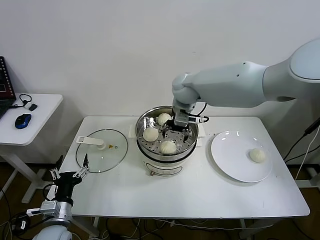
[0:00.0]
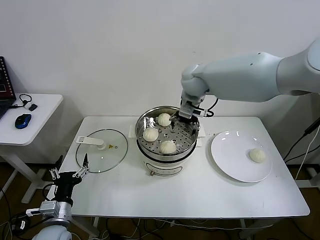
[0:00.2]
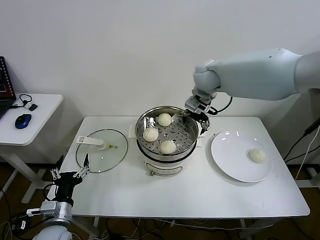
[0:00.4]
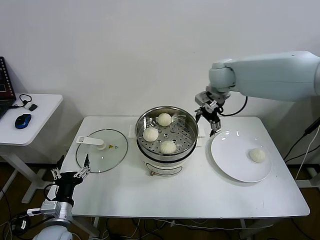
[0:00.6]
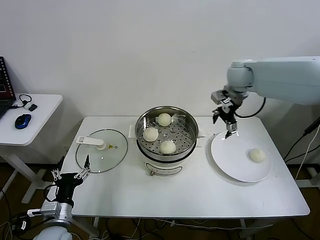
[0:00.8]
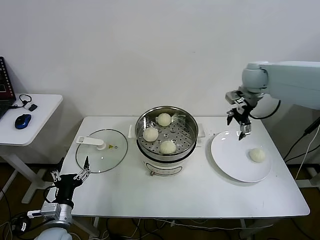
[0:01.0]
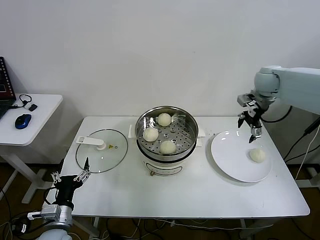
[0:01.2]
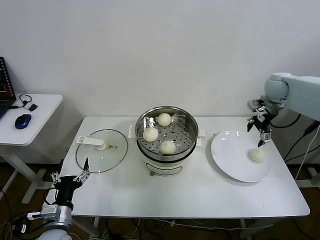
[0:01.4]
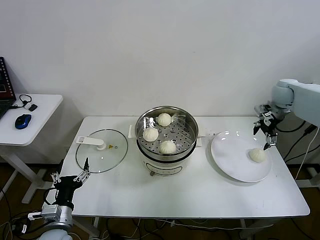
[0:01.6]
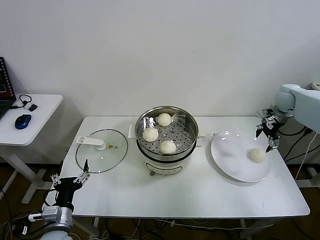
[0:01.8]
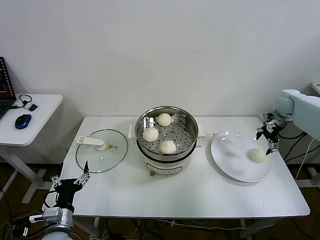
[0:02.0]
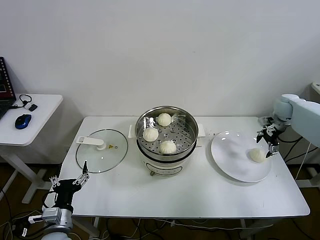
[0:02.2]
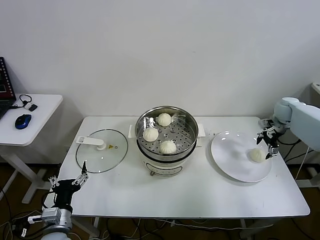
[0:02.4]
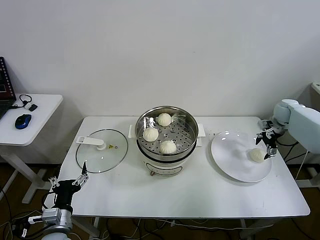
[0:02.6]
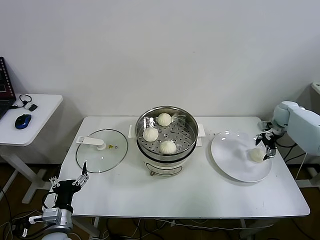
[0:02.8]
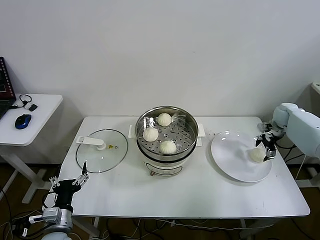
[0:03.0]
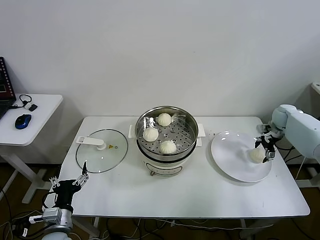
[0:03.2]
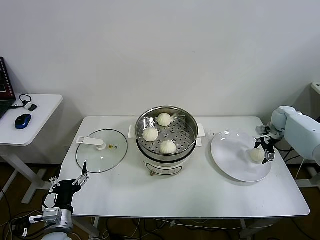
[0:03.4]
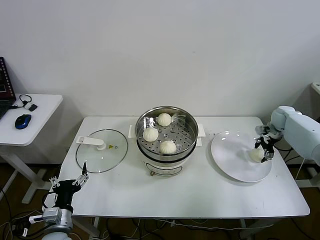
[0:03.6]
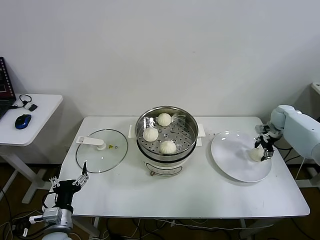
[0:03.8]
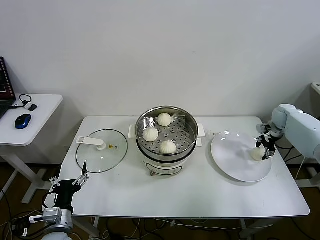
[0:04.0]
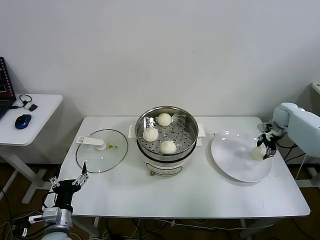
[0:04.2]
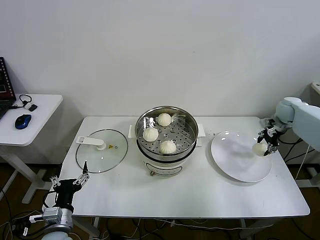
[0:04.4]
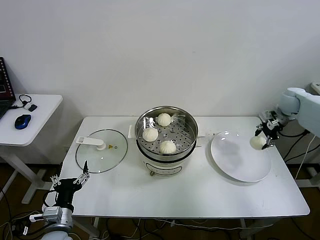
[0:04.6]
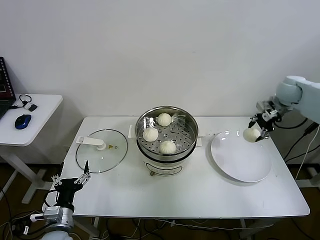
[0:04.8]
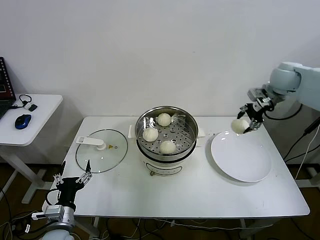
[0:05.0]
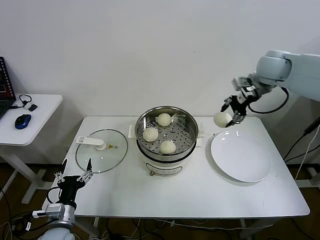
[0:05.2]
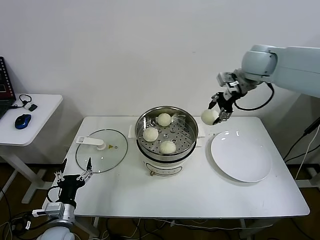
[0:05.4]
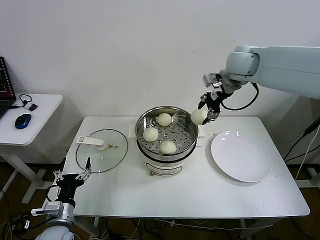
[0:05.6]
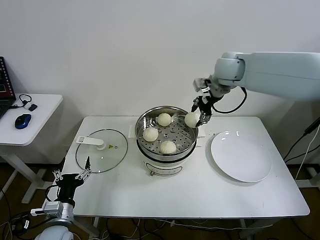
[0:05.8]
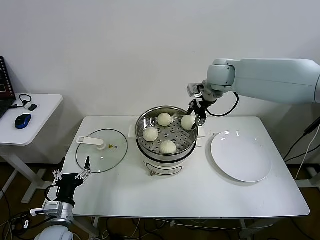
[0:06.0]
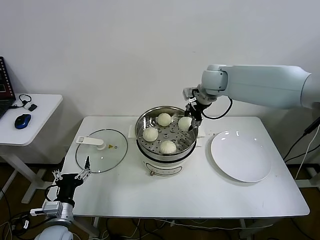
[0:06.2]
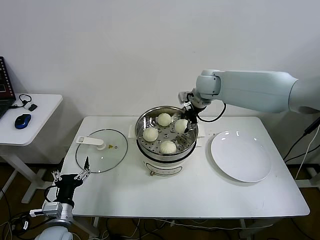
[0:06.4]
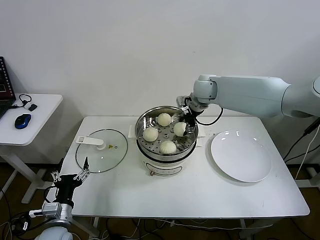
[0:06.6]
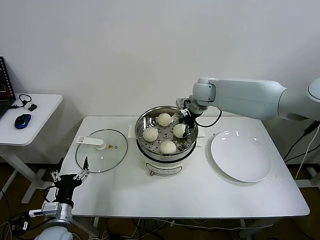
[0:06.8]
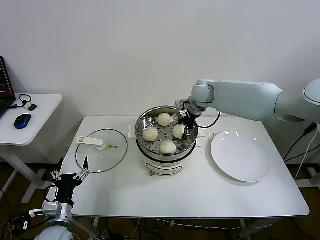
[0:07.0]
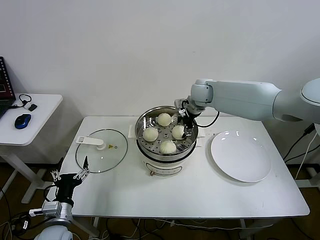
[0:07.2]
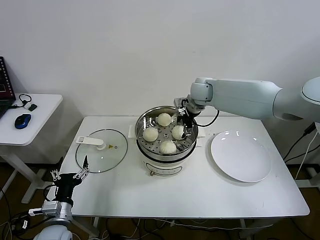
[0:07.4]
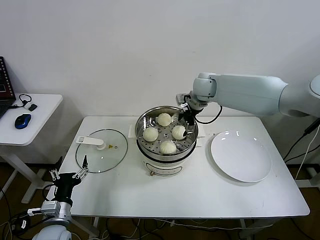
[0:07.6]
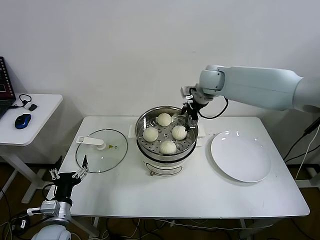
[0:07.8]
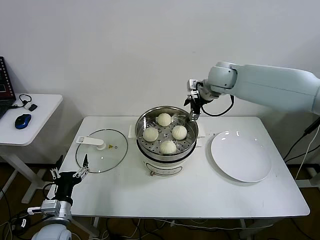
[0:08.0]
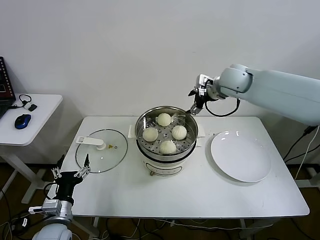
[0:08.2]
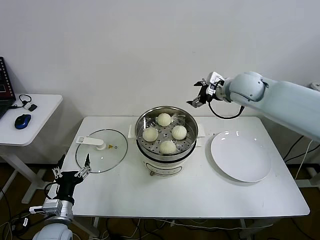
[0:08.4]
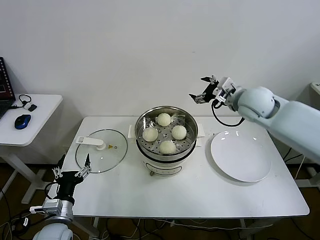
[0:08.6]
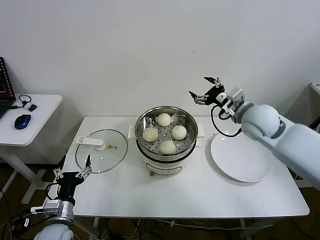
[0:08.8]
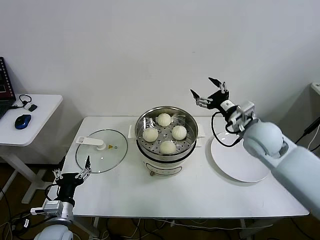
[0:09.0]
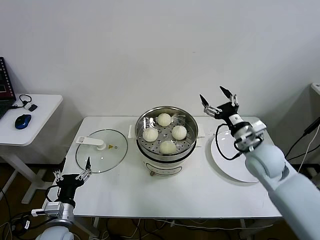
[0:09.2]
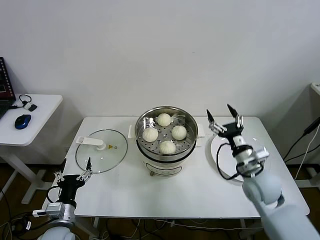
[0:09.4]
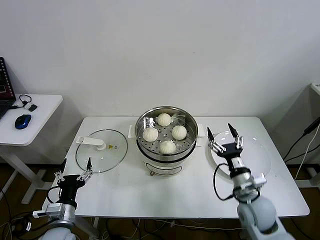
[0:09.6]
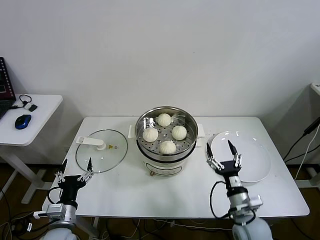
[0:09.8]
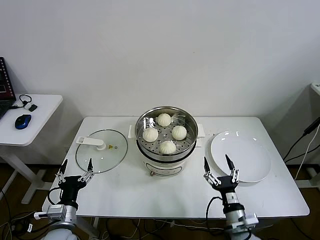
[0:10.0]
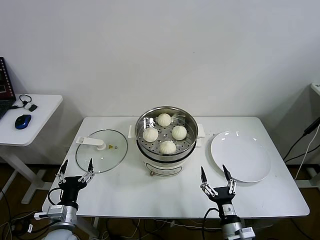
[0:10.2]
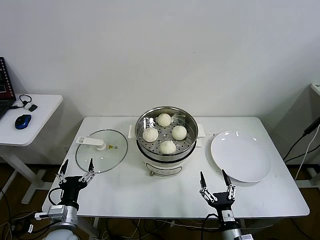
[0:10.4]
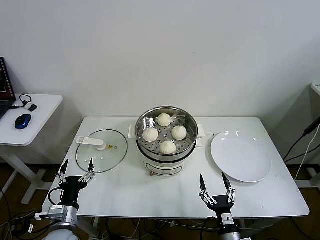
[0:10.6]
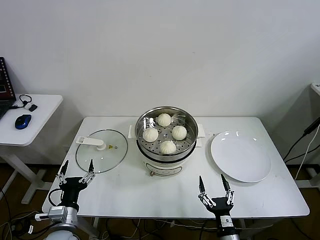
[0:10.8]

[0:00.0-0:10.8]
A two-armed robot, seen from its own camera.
Step, 0:00.0 to 0:03.8: Grasp the baozi in the plate with right gripper.
Step, 0:04.0 to 0:07.2: Place the baozi on the steamer with right gripper.
0:00.0 to 0:01.6: The right gripper shifts approximately 35 cm to the right.
0:01.6 to 0:03.0: The right gripper travels downward and to the right by roughly 15 cm.
0:03.0 to 0:04.6: The right gripper is displaced upward by some 10 cm, and closes up.
0:04.6 to 0:06.2: The right gripper heads to the left, covering roughly 30 cm.
0:06.2 to 0:07.8: The right gripper opens.
0:07.8 to 0:09.2: The right gripper goes roughly 25 cm backward, to the right and downward.
0:09.2 to 0:10.8: The right gripper heads backward and downward, covering about 35 cm.
